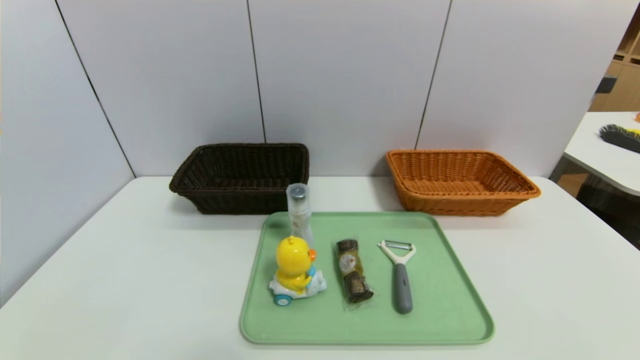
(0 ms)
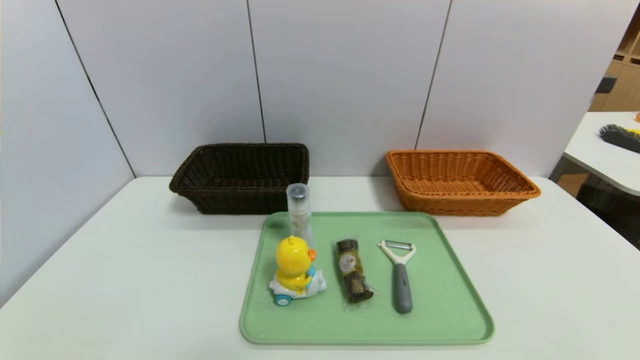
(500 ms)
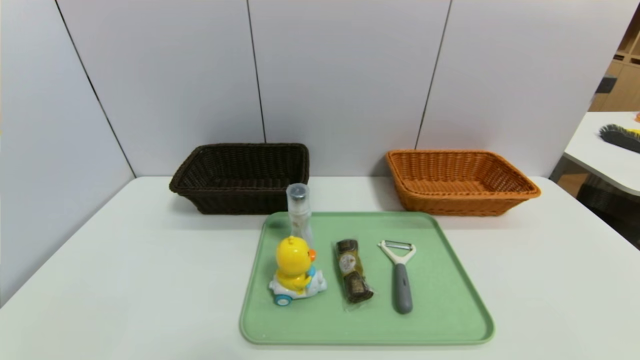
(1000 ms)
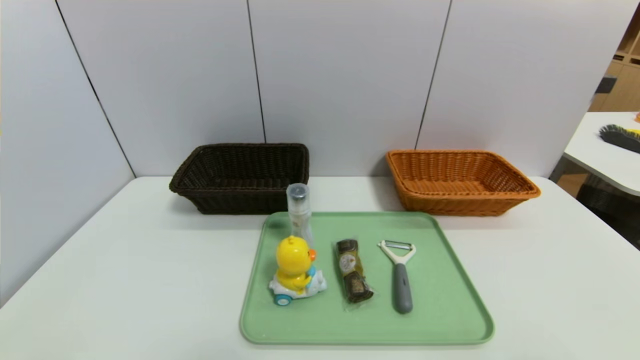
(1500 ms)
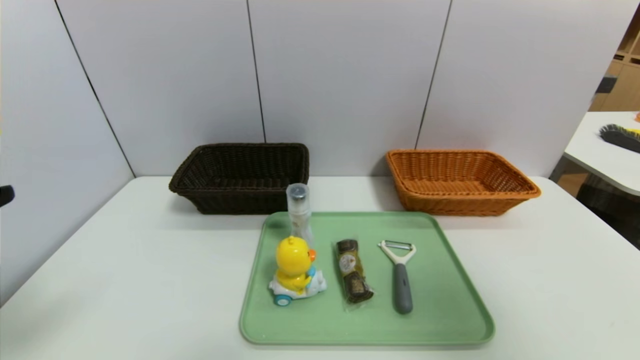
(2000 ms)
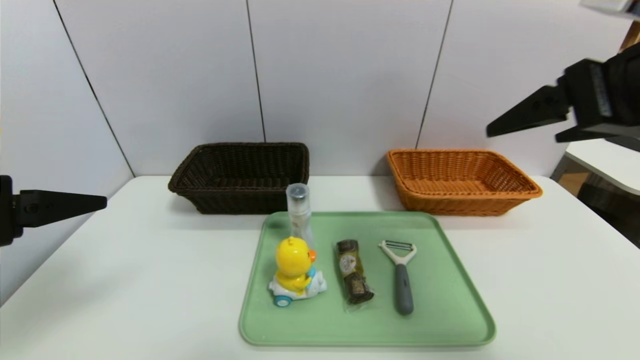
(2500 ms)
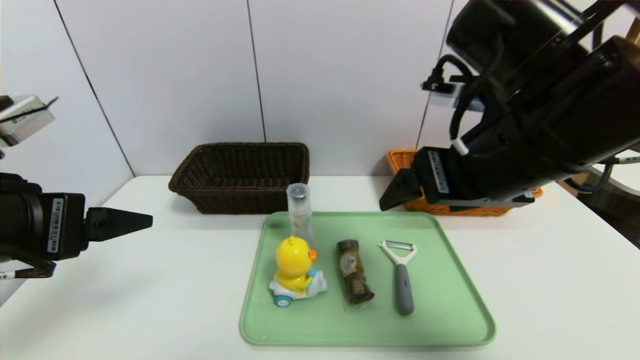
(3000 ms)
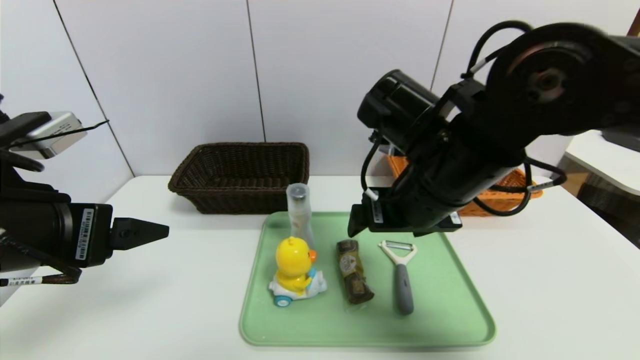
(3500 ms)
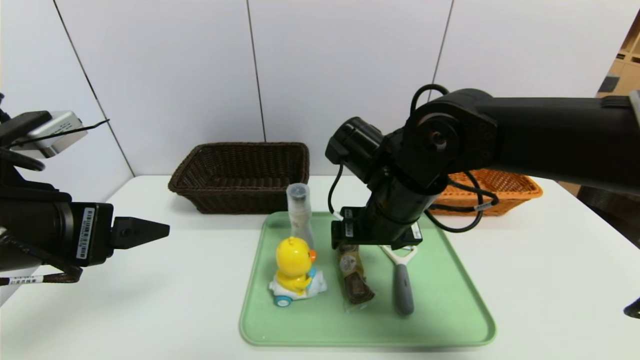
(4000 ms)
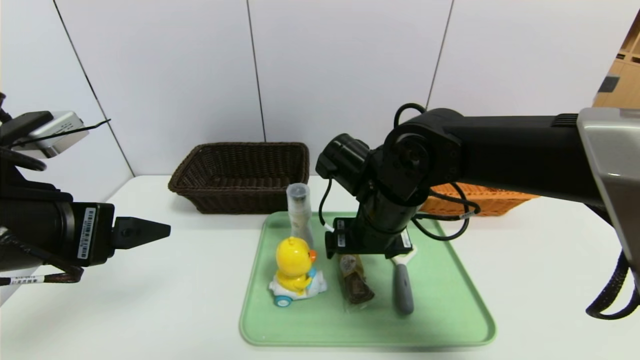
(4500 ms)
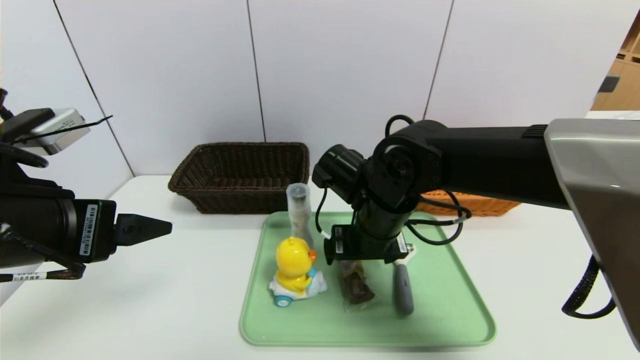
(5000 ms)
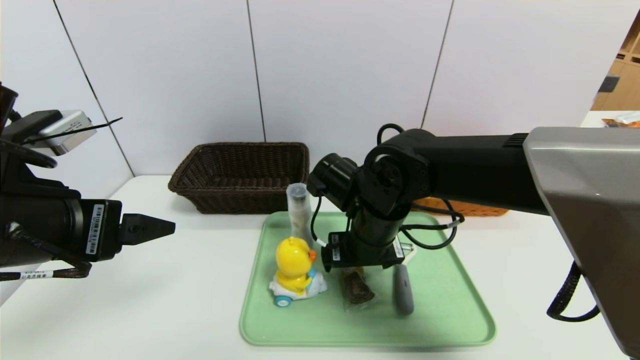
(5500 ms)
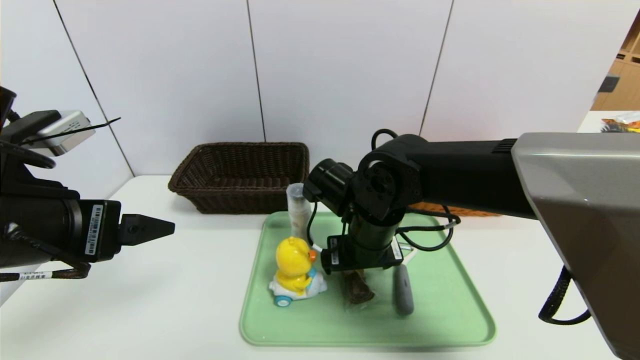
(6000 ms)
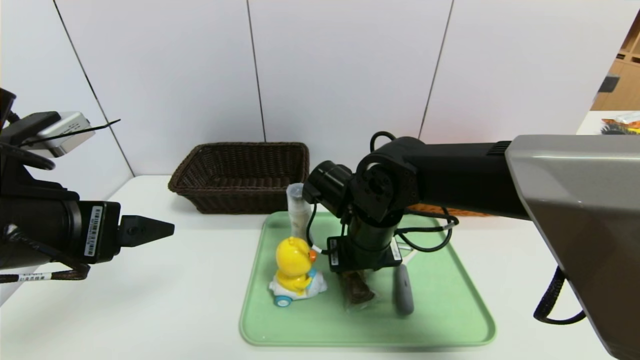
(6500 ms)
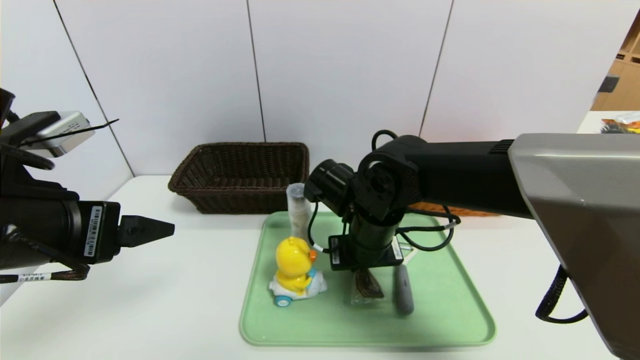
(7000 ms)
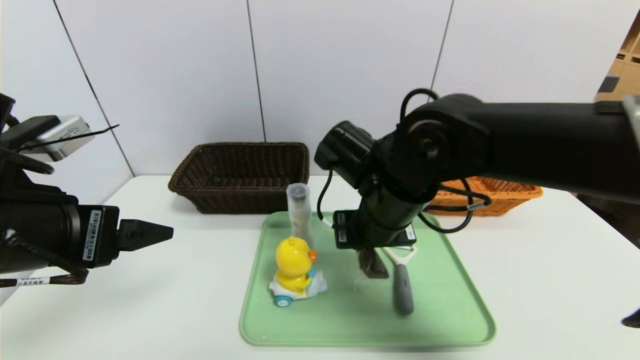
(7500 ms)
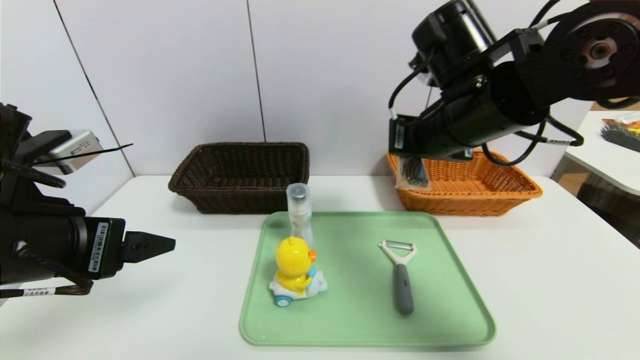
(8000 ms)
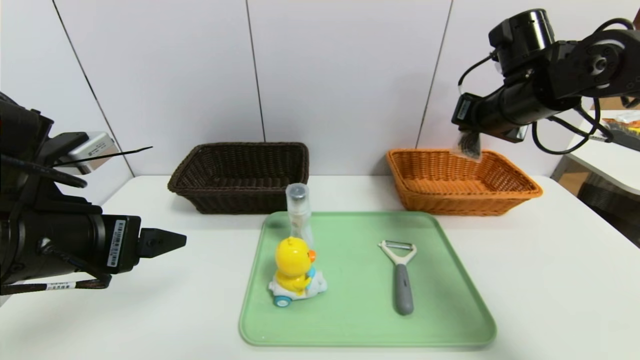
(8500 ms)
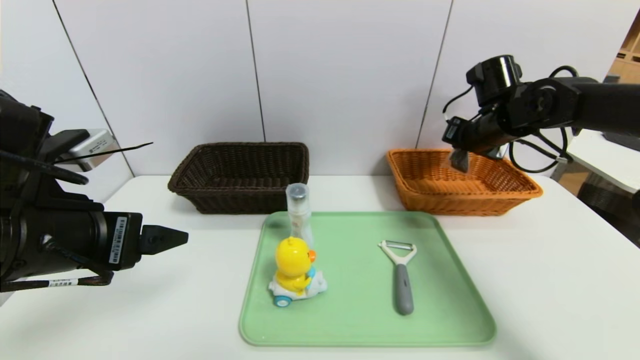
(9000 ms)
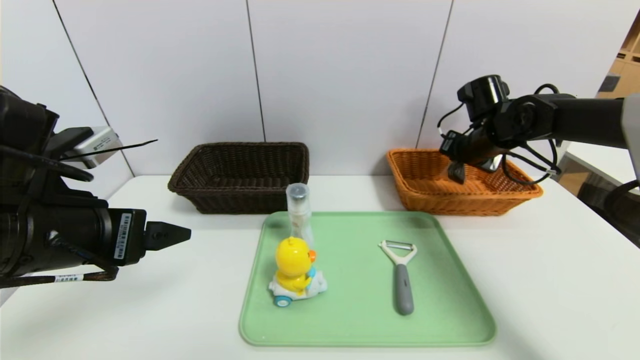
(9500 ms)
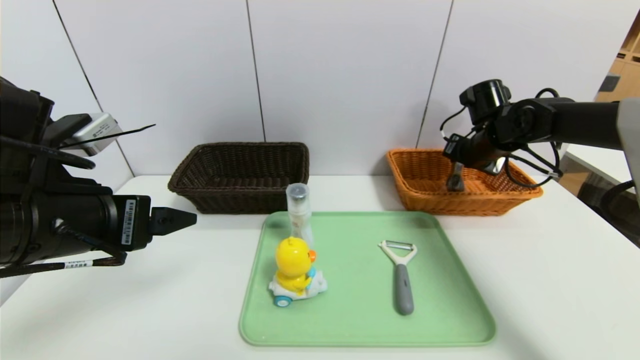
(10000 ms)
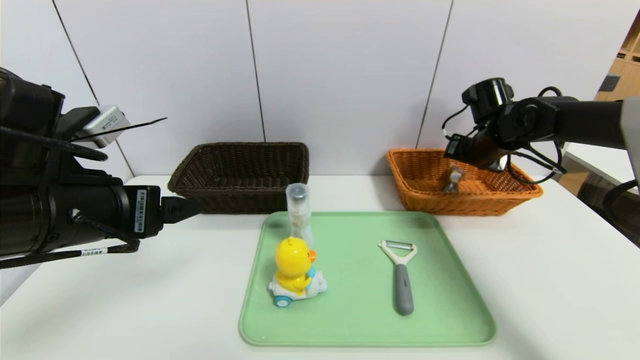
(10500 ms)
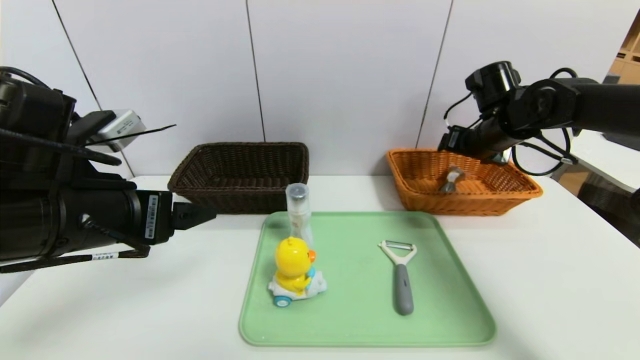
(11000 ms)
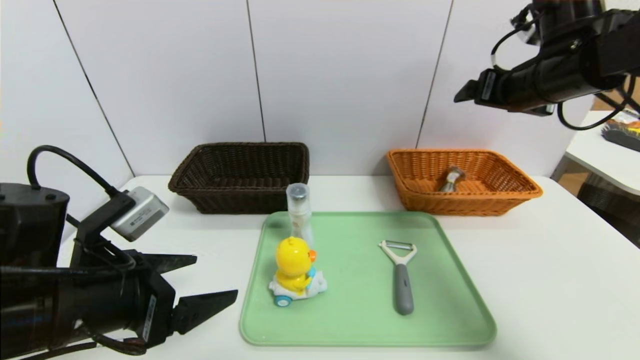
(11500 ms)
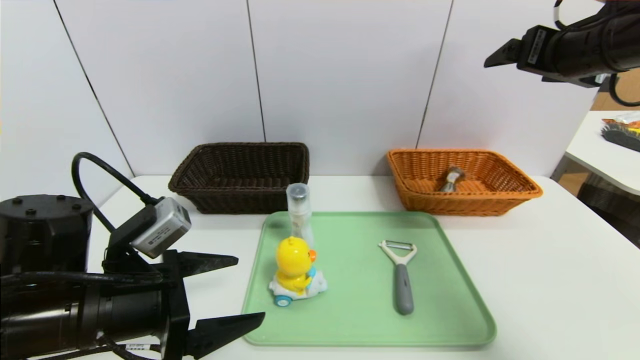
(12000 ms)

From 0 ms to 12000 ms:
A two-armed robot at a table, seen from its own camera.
Task of the whole recording: place the food in the right basket with the right gripper, and place the non food items in the left basket with the left gripper.
Step, from 0 ms to 10500 ms: Grasp the chocolate and put it in the right basket.
From 0 ms to 2000 ms: The left gripper moves upward, some 25 cm; the right gripper heads upward, covering about 35 cm.
From 2000 ms to 4000 ms: The right gripper shifts some 40 cm to the left, downward and forward. Meanwhile the left gripper travels forward and to the right by about 10 cm.
From 4000 ms to 6000 ms: The right gripper is displaced downward by roughly 5 cm.
From 6000 ms to 8000 ms: The right gripper goes approximately 15 cm upward and to the right, and closes up.
From 8000 ms to 10000 ms: The right gripper goes roughly 25 cm forward, to the right and downward.
From 10000 ms to 12000 ms: The left gripper moves downward, approximately 10 cm. The right gripper is displaced upward and backward by roughly 20 cm, and opens up.

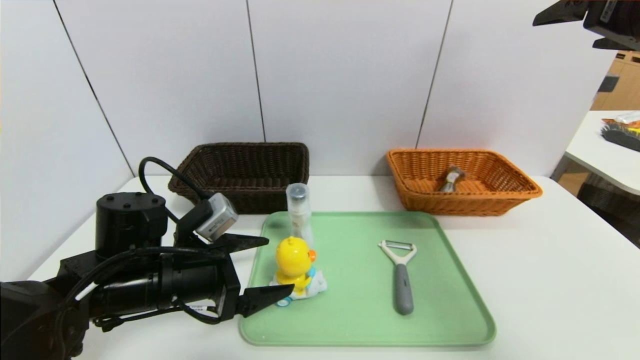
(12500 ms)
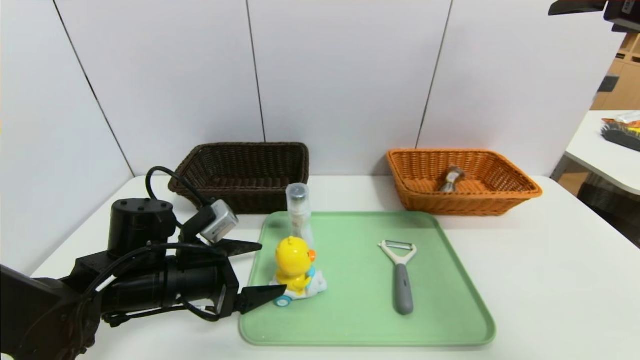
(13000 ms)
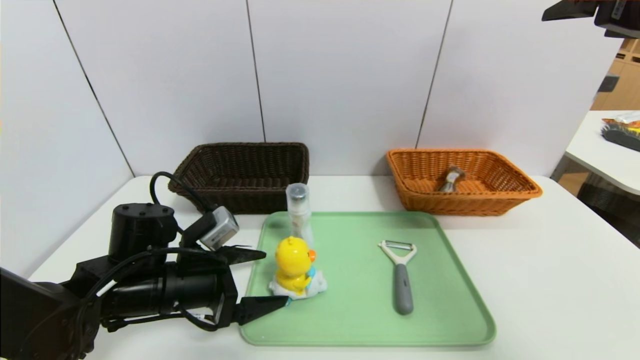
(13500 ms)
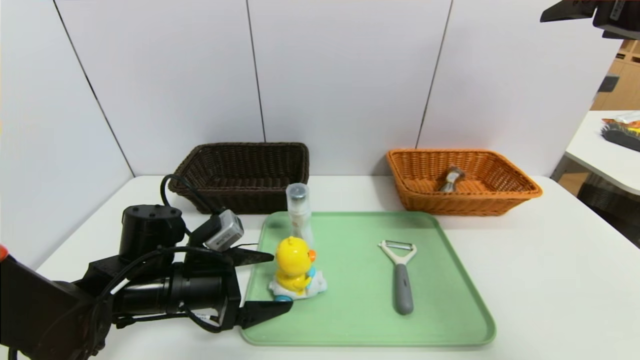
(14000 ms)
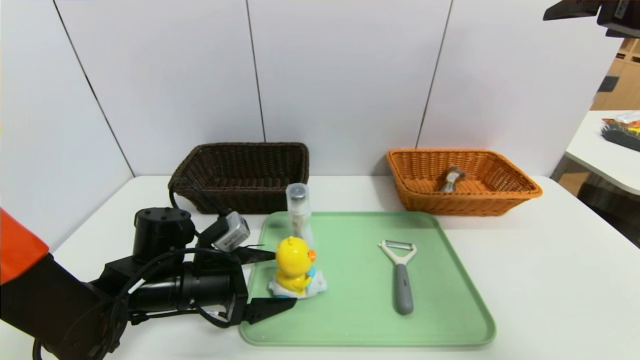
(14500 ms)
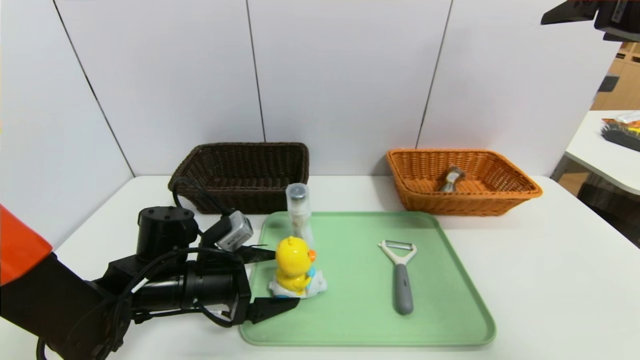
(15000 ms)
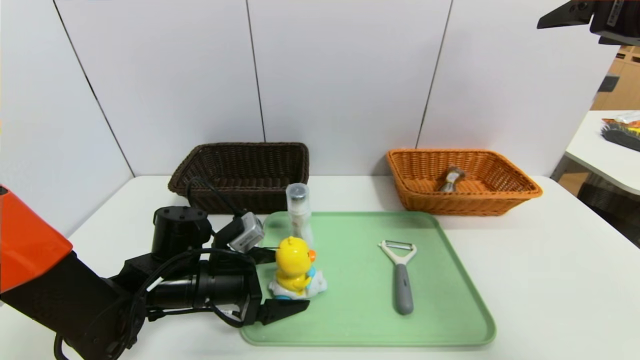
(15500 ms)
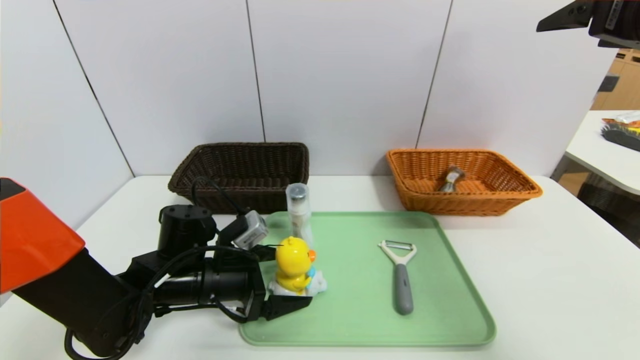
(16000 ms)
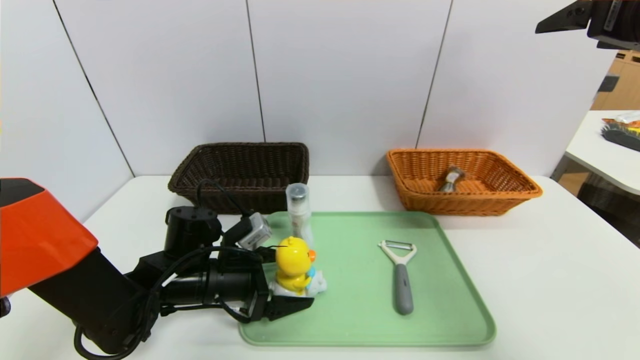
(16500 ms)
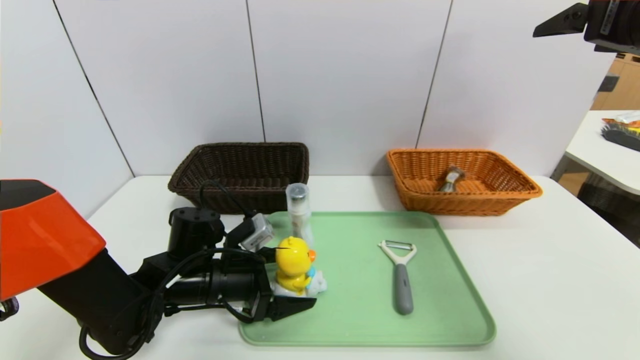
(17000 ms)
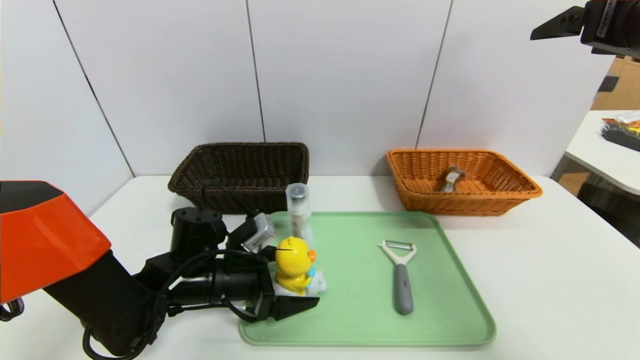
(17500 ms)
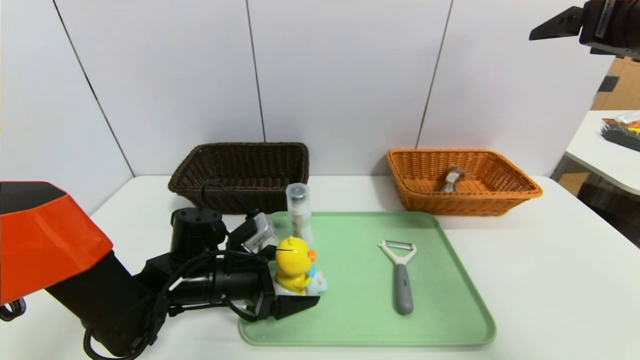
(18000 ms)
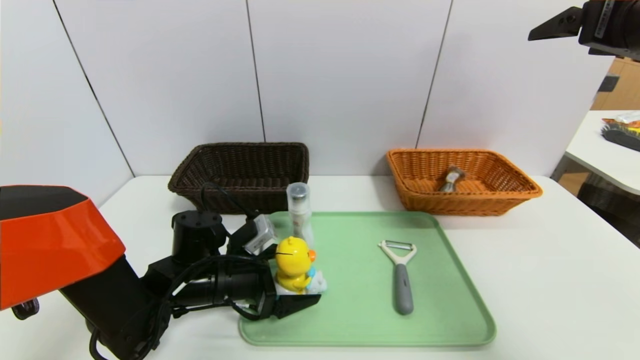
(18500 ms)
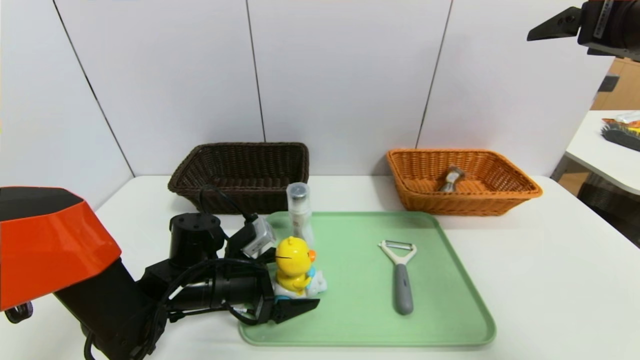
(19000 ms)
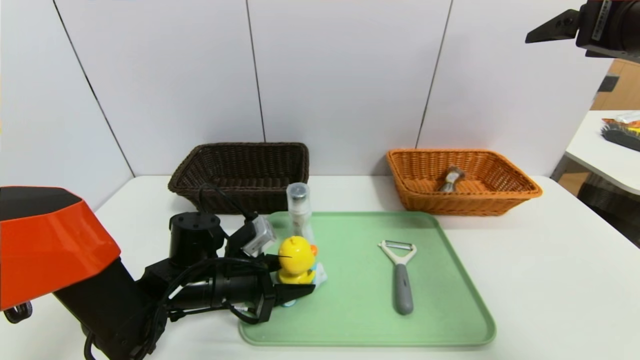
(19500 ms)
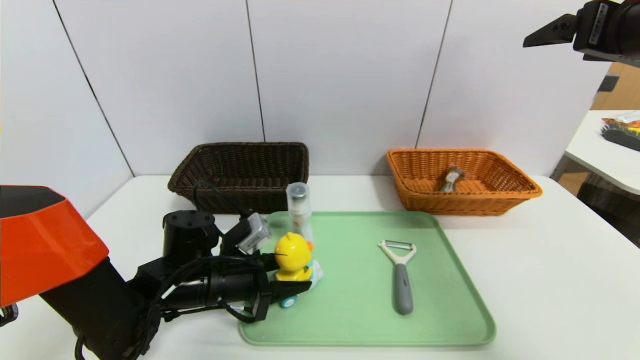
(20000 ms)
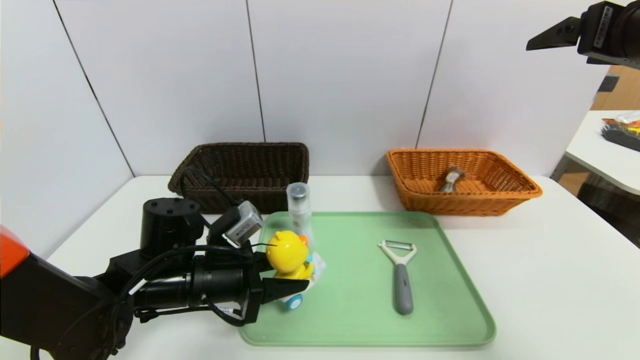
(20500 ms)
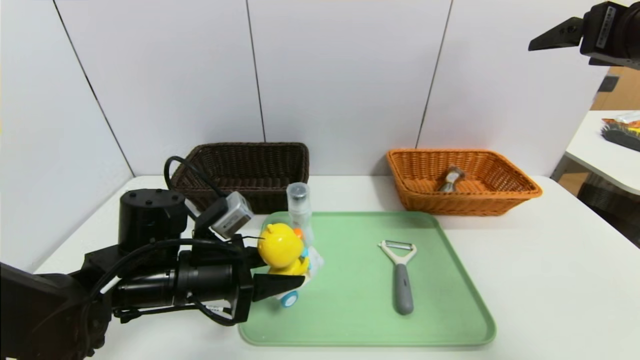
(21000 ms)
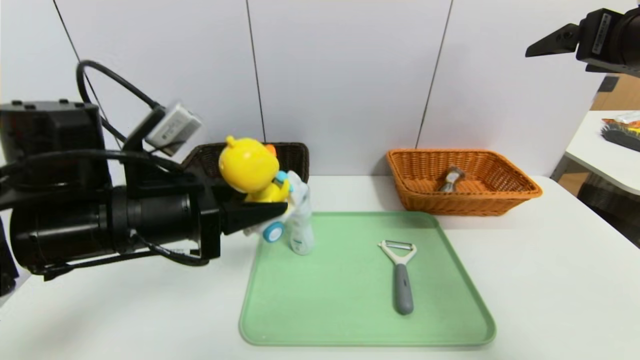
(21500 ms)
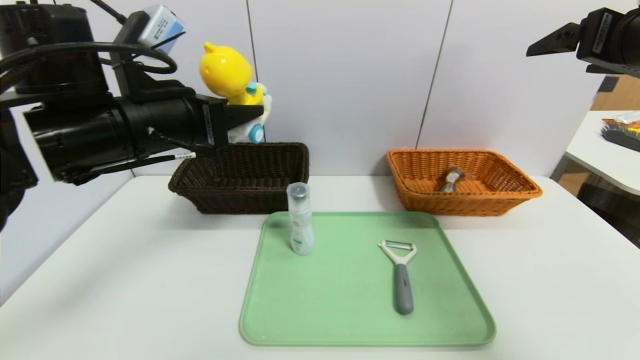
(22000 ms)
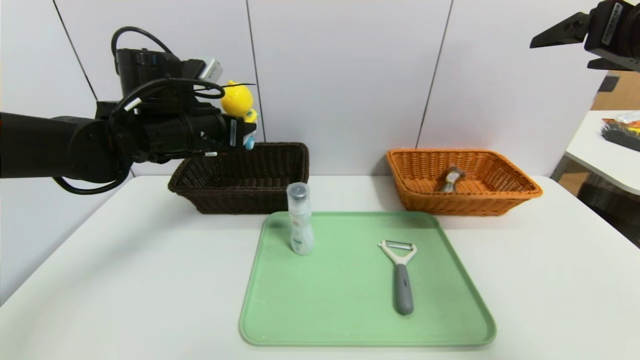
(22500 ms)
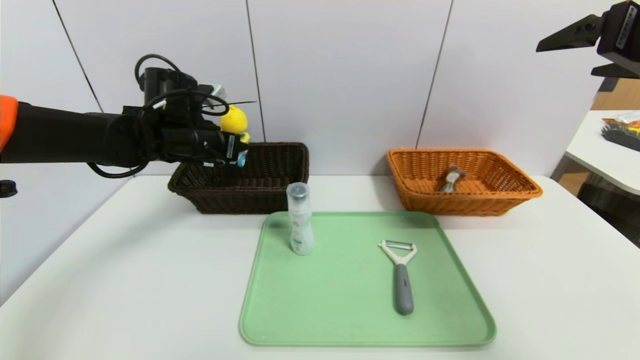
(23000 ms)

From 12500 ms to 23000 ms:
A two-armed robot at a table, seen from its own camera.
Task of the whole recording: place the food in the right basket with the right gripper, and place the non food items in the left basket with the left gripper.
From 12500 ms to 14500 ms: The left gripper moves approximately 5 cm.
From 14500 ms to 19000 ms: The grippers move only a little.
From 19000 ms to 21000 ms: The left gripper shifts some 5 cm upward, and closes up.
From 21000 ms to 23000 ms: The left gripper moves forward and upward, approximately 20 cm.
